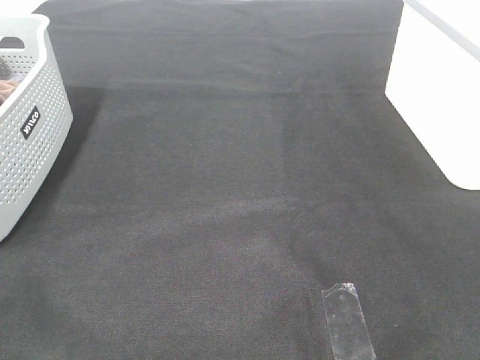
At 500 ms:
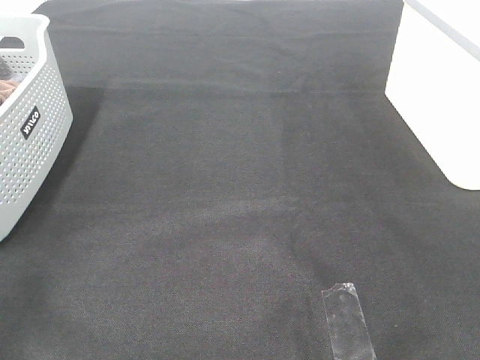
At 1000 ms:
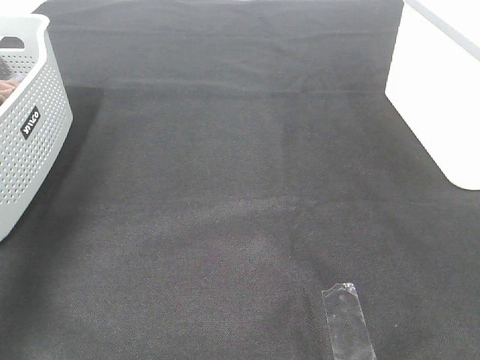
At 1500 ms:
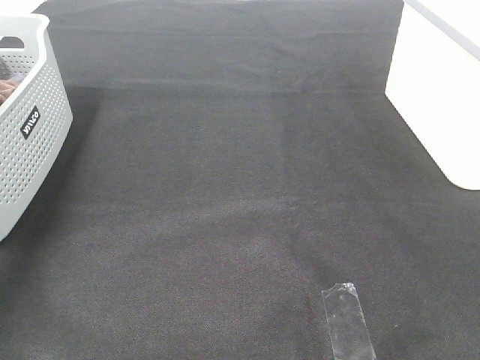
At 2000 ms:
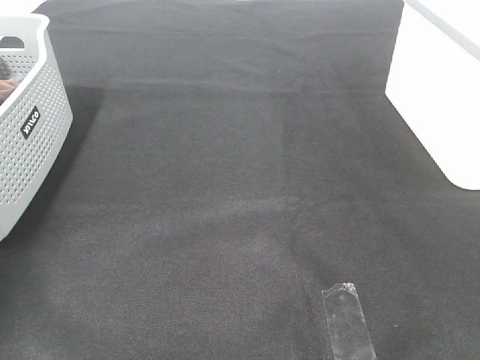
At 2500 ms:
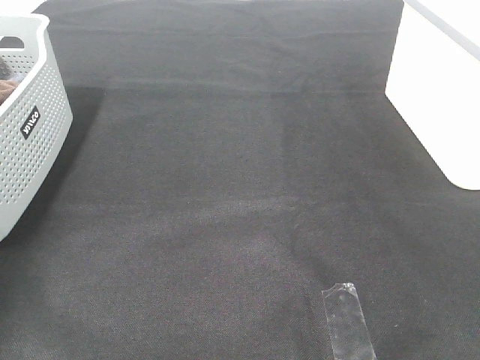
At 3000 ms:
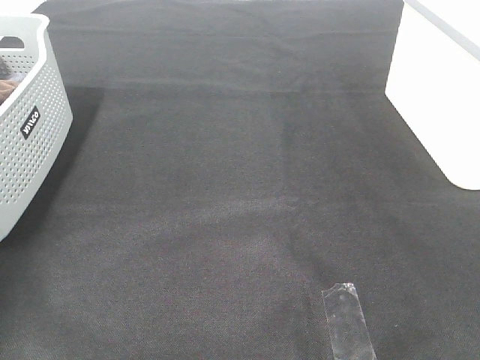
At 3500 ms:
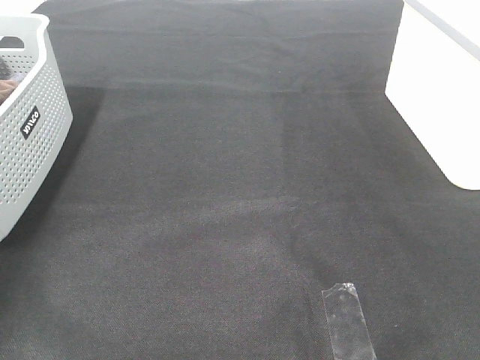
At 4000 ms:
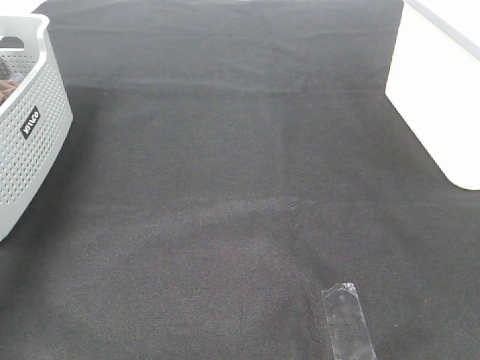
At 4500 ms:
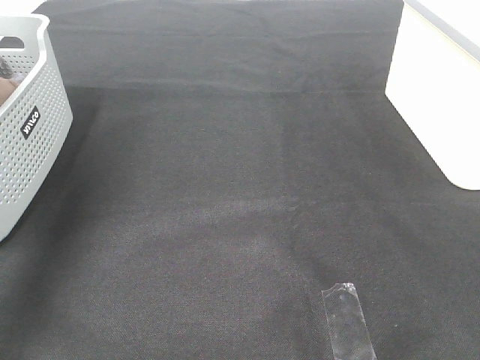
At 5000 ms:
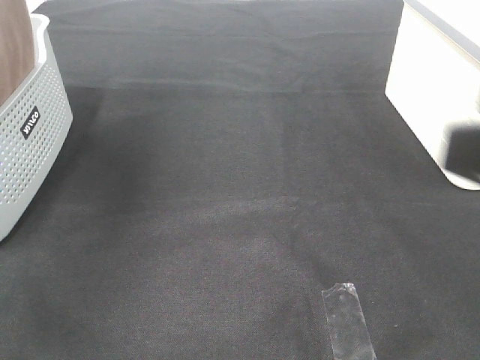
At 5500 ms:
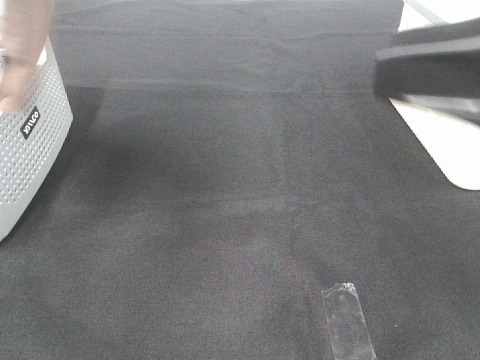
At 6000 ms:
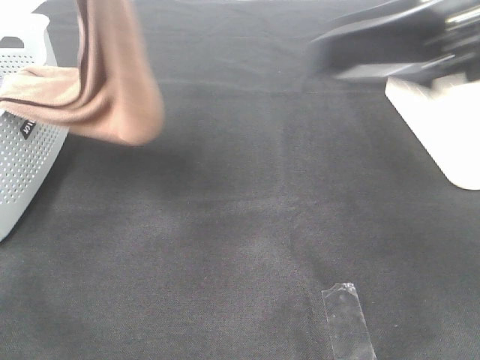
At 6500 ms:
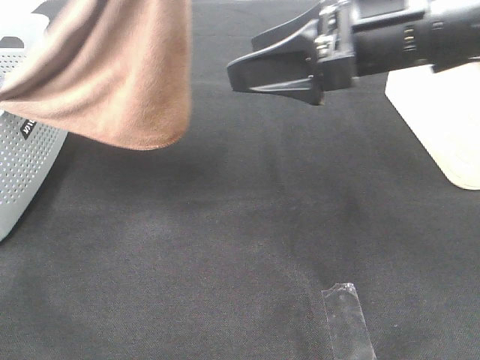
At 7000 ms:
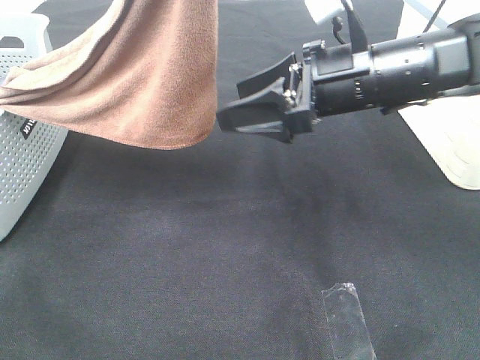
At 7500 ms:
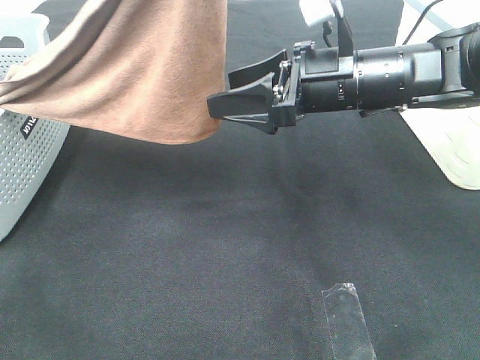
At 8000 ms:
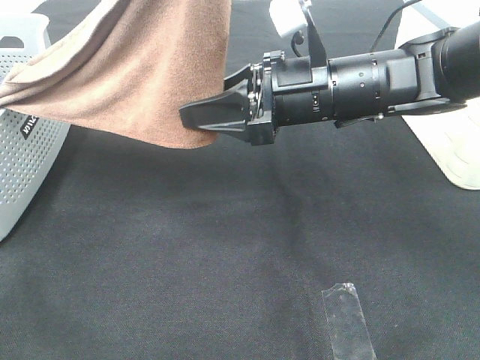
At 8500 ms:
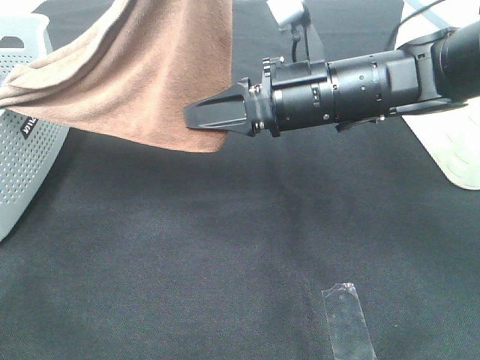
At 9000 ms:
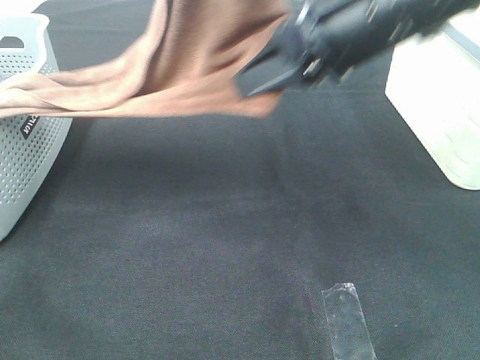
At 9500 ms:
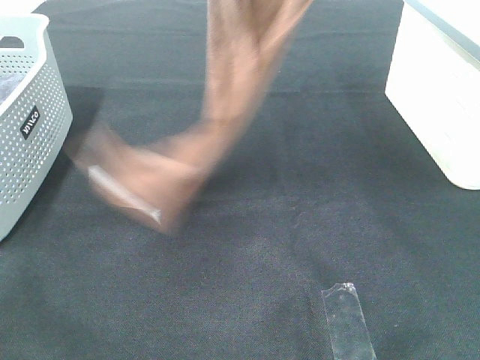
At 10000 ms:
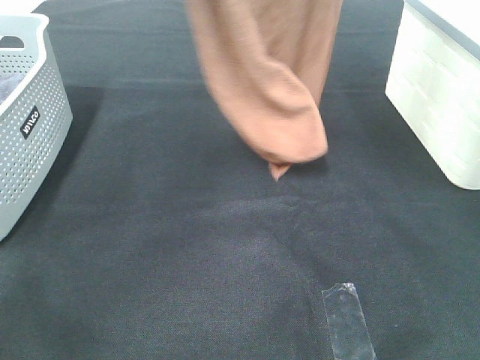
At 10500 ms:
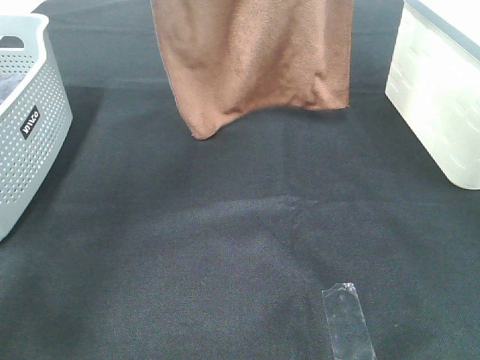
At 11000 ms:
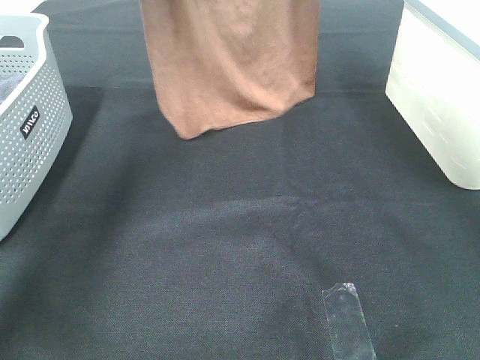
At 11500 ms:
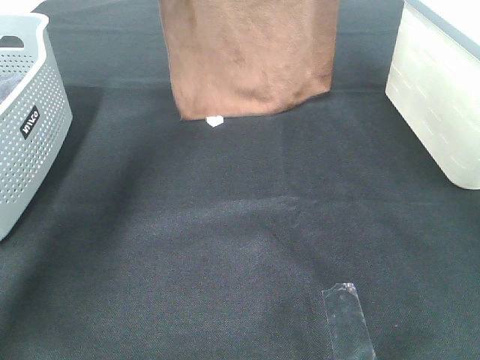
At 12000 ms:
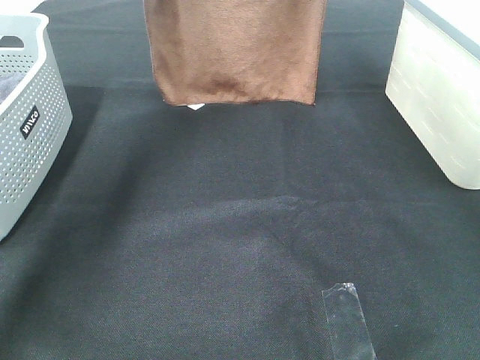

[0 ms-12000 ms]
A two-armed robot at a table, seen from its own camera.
Task of the whole recording: Remove the towel and place it.
Step, 5500 ms to 7500 ms: Right hand: grab a corner of the brown towel and straighten it.
0 ms to 2000 ms: The left gripper is displaced forward by roughly 40 cm.
2000 ms to 4000 ms: The left gripper moves upward, roughly 15 cm, and closes its fingers.
4000 ms to 6000 ms: The left gripper travels to the right by some 25 cm, while the right gripper heads forward and to the left, covering approximately 25 cm.
6000 ms to 8000 ms: The left gripper is displaced to the right by about 5 cm; the right gripper shifts about 15 cm downward, to the left and forward, and closes up.
8000 ms to 10000 ms: The left gripper heads forward and to the left, covering roughly 15 cm. The right gripper is displaced upward by roughly 30 cm.
10000 ms to 12000 ms: The right gripper is displaced forward by about 10 cm; the left gripper heads forward and downward, covering roughly 15 cm.

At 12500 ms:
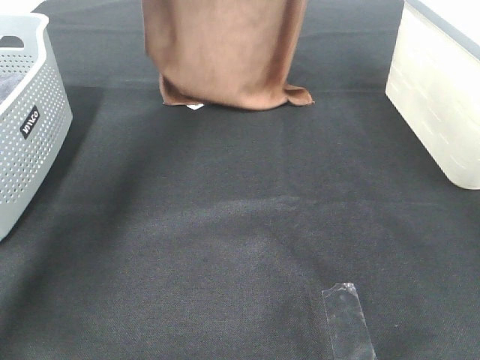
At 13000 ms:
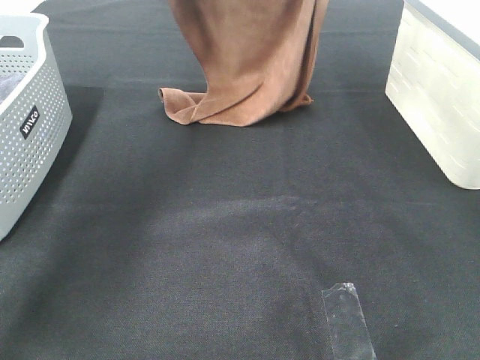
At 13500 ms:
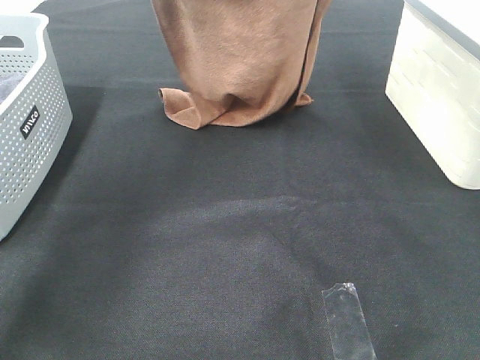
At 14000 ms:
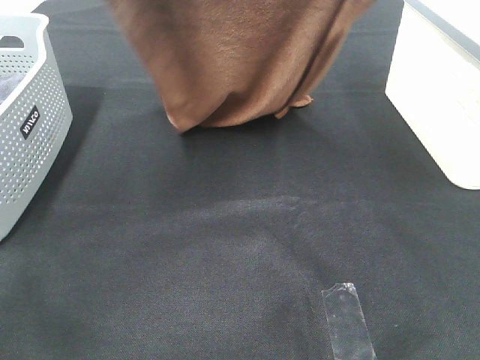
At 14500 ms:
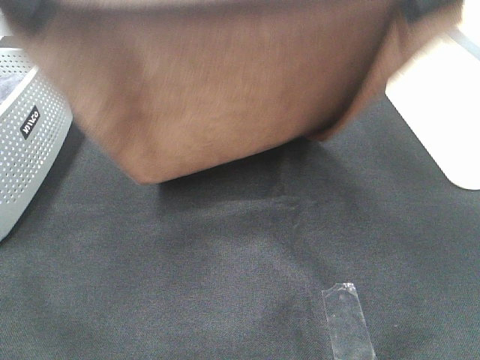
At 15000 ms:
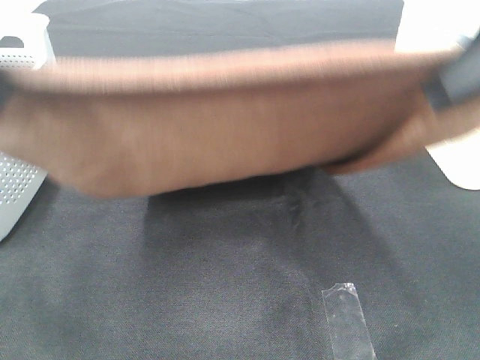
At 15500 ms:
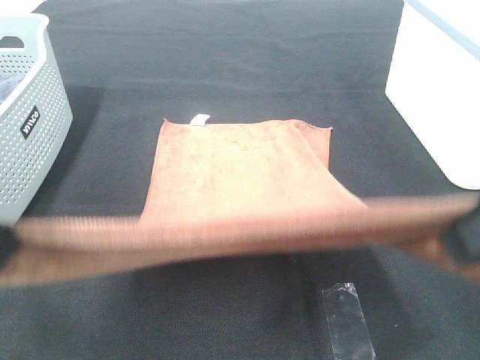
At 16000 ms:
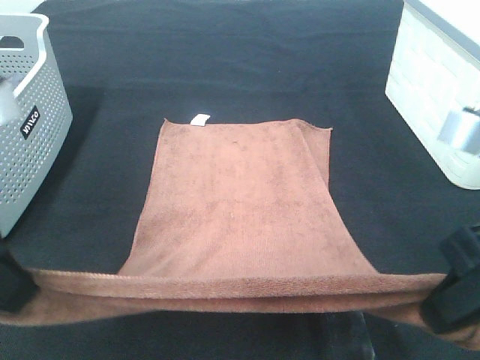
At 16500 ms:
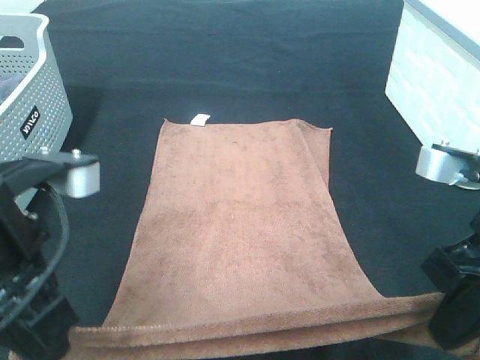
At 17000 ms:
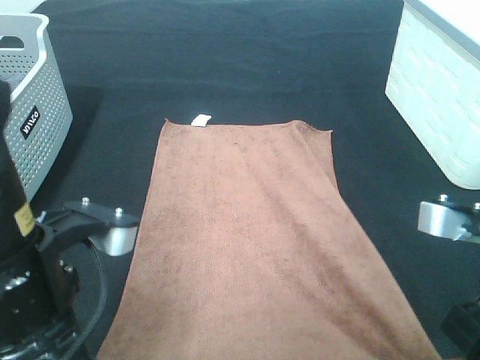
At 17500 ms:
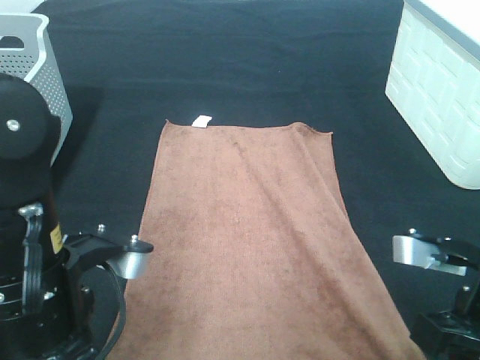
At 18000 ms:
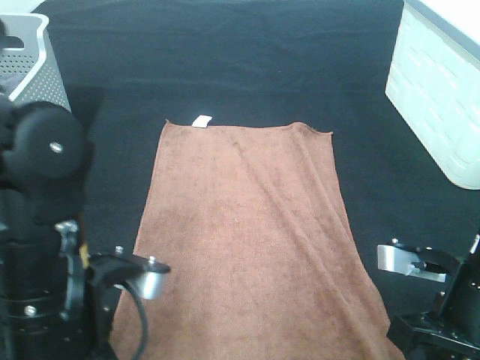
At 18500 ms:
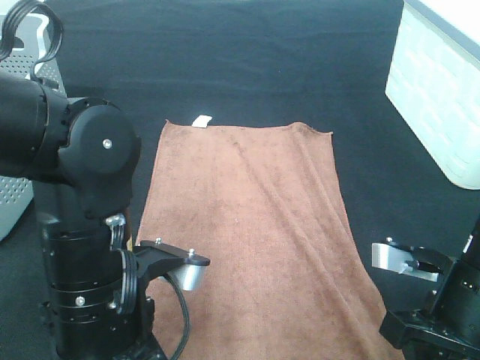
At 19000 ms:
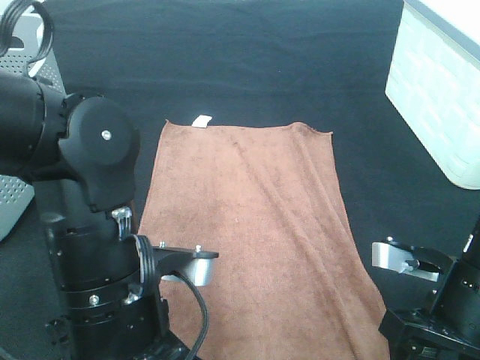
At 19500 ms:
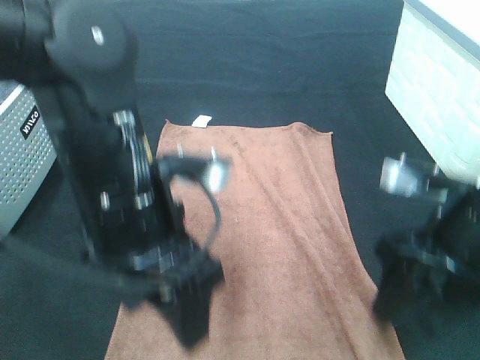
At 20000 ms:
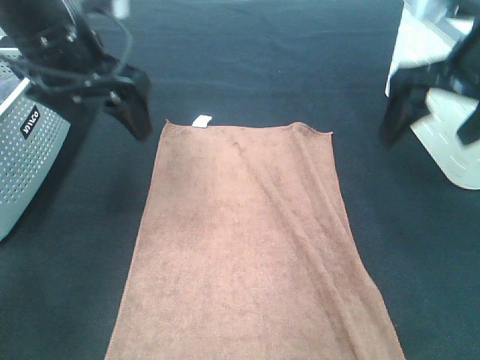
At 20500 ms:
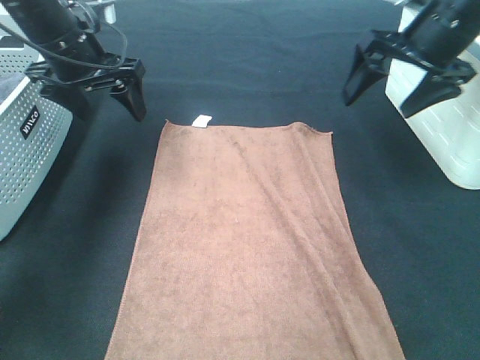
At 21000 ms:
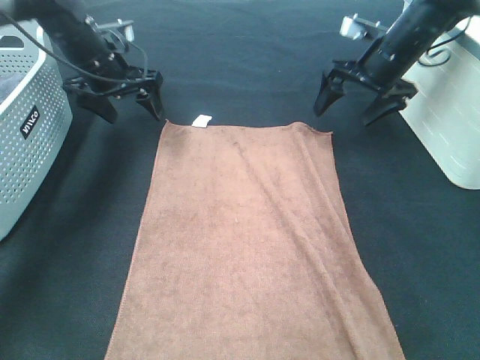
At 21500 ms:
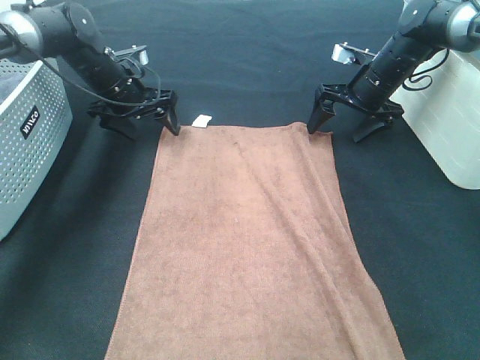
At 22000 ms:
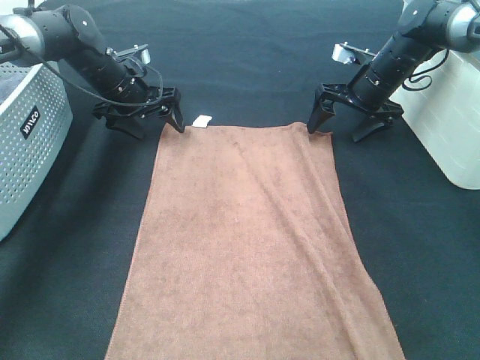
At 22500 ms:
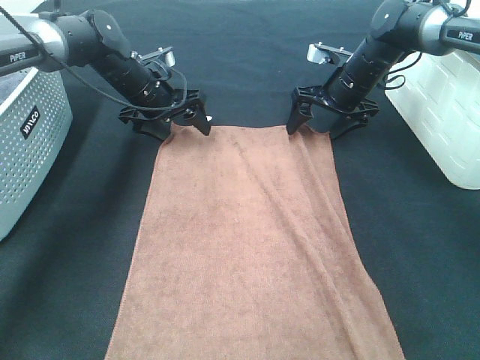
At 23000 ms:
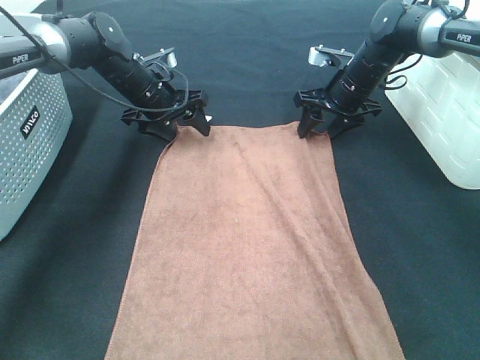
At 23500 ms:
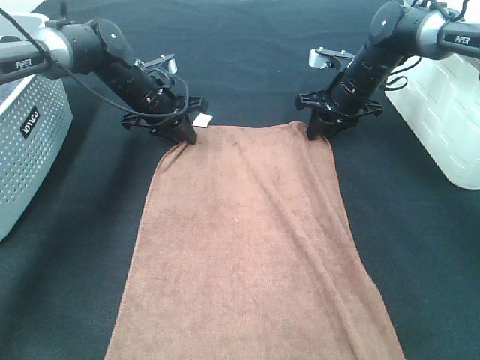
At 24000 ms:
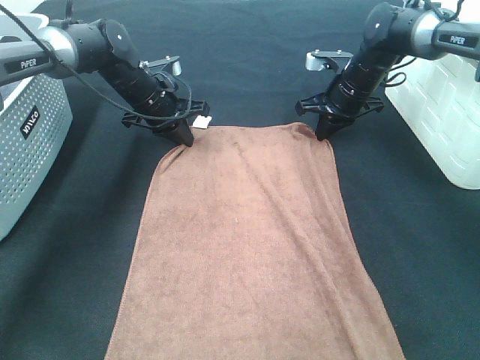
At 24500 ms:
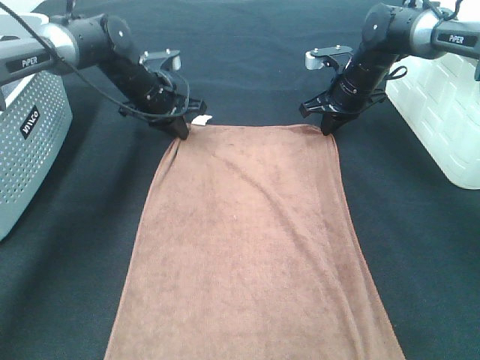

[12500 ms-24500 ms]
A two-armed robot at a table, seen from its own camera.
Task of the whole recording: Remove the towel and place it.
Step, 12500 ms to 14500 ms: Left hand: spread the brown towel flat on the table.
Step, 12500 ms to 14500 ms: Right hand: spread the brown towel flat on the table.
Step, 15000 ms to 21500 ms: Right hand:adjust the brown towel.
Step, 15000 ms to 23000 ms: Left hand:adjust the brown towel.
12500 ms to 14500 ms: The two grippers go some 30 cm backward.
14500 ms to 16500 ms: The two grippers go roughly 20 cm downward and backward.
16500 ms to 18500 ms: The right gripper heads downward, covering approximately 10 cm; the left gripper shifts roughly 10 cm downward and to the right.
18500 ms to 20500 ms: The right gripper travels forward and upward by about 25 cm, and opens, while the left gripper moves forward and to the left, some 30 cm, and opens.
20500 ms to 22500 ms: The right gripper is displaced downward and forward by approximately 20 cm. Meanwhile the left gripper shifts approximately 15 cm downward, forward and to the right.
22500 ms to 24500 ms: The left gripper closes up. The right gripper closes.

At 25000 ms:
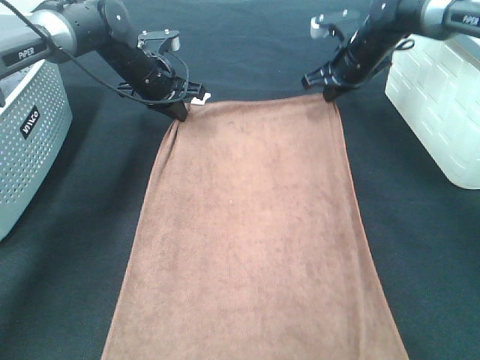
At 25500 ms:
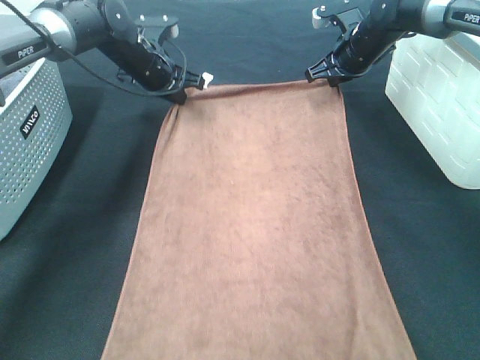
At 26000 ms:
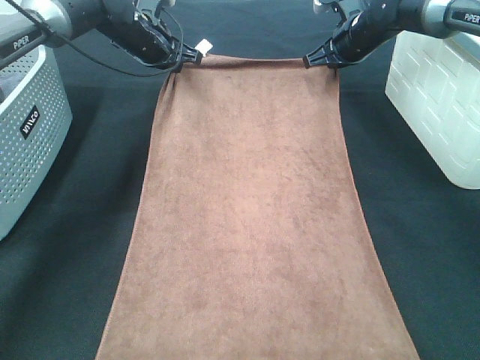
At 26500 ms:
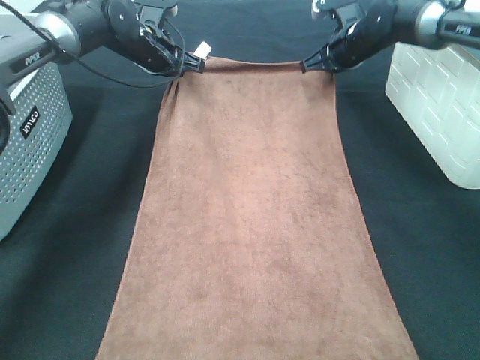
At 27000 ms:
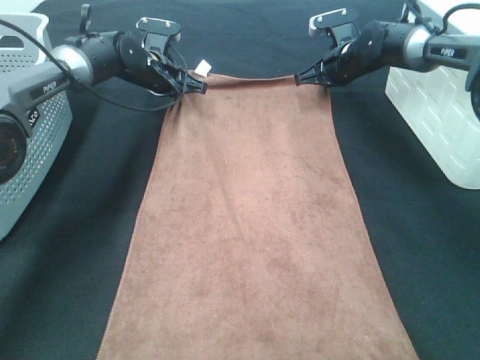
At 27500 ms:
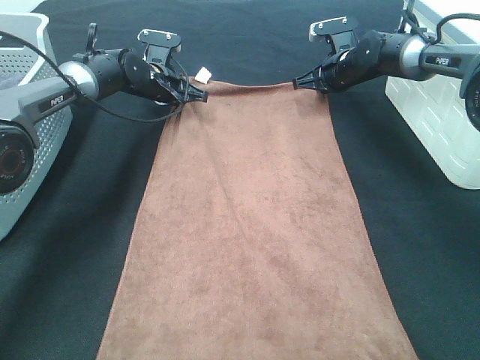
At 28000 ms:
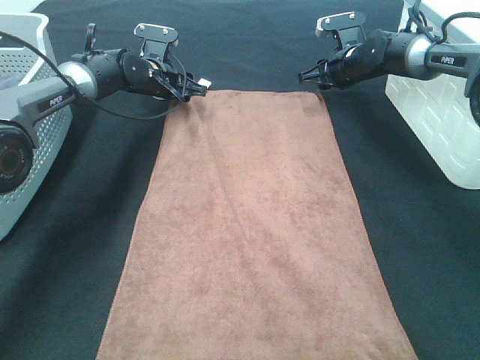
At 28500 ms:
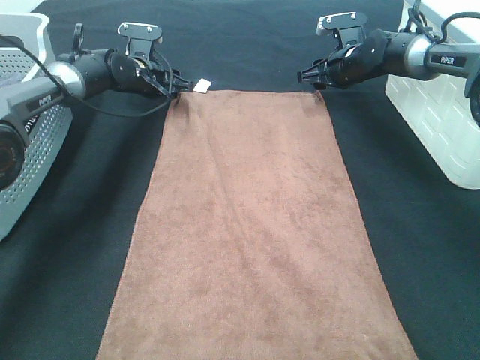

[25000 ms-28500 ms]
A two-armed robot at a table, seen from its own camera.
Task of the whole recording: Remove the towel and place it.
25000 ms to 27000 ms: The left gripper ends up roughly 5 cm from where it was.
27000 ms to 28500 ms: The right gripper opens. The left gripper opens.
